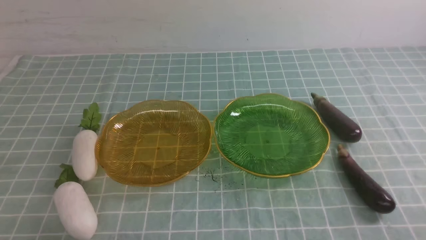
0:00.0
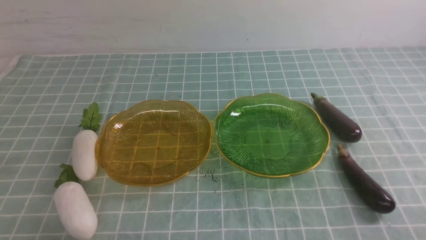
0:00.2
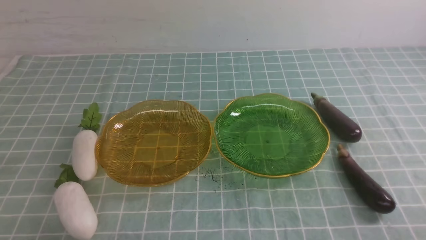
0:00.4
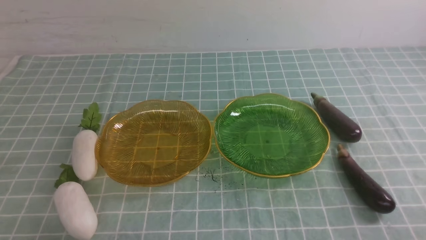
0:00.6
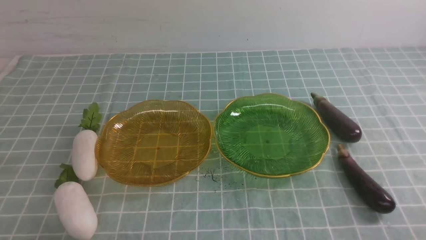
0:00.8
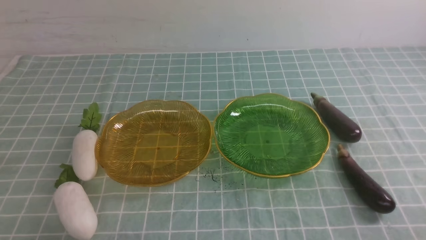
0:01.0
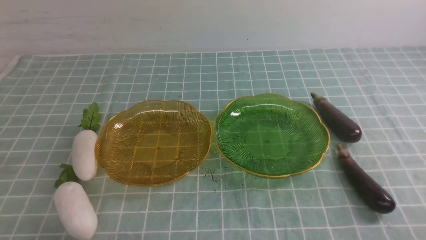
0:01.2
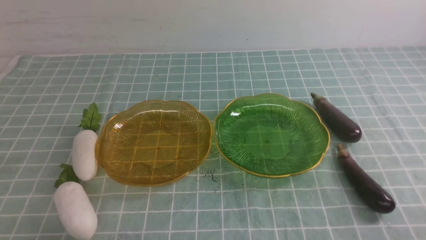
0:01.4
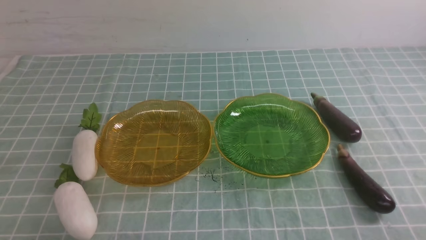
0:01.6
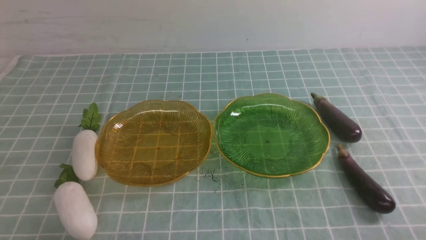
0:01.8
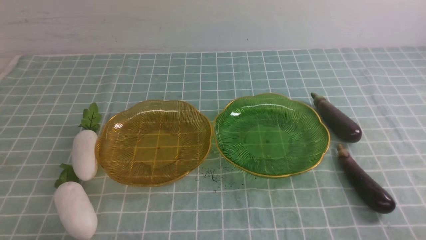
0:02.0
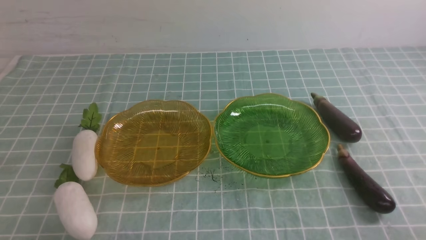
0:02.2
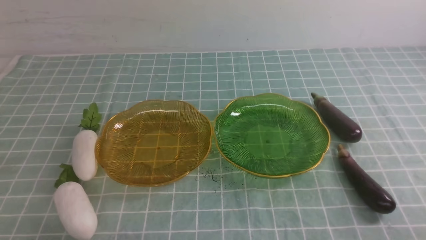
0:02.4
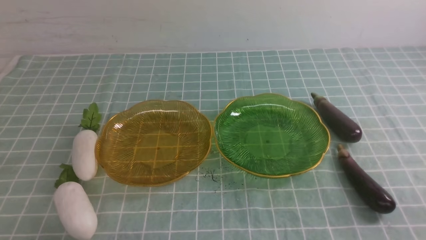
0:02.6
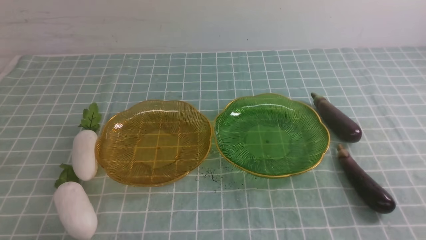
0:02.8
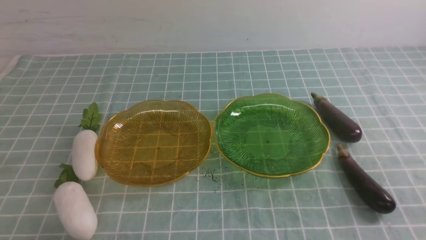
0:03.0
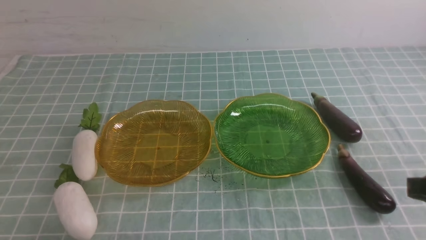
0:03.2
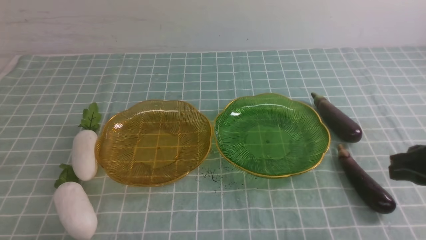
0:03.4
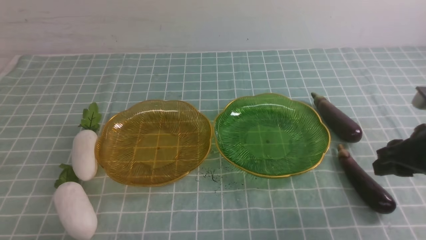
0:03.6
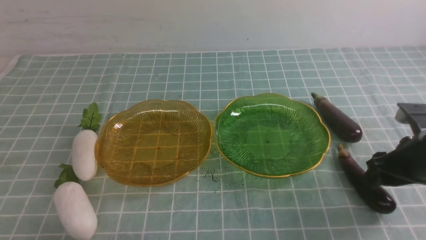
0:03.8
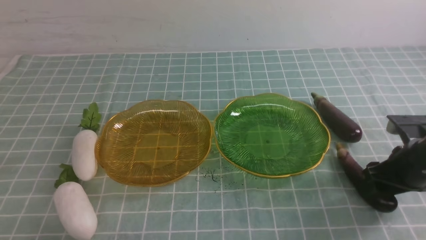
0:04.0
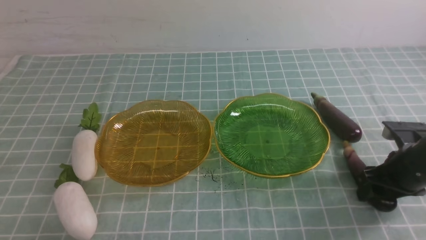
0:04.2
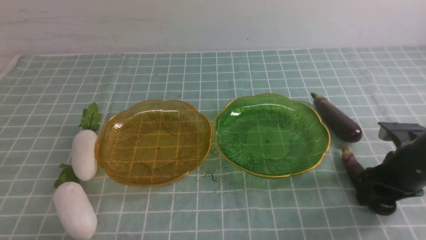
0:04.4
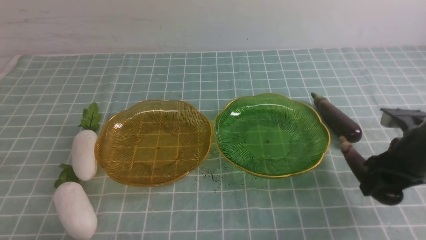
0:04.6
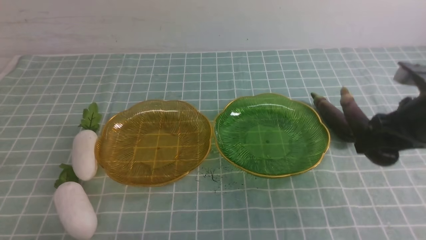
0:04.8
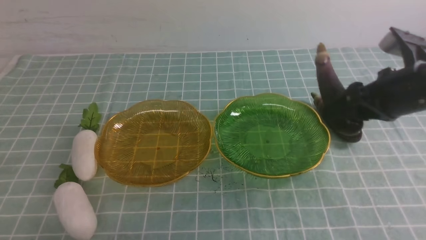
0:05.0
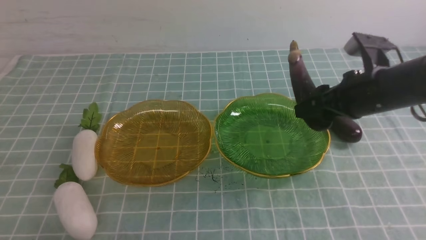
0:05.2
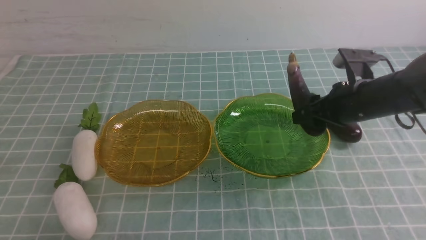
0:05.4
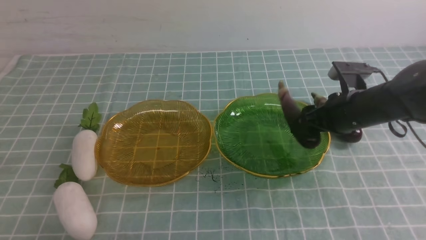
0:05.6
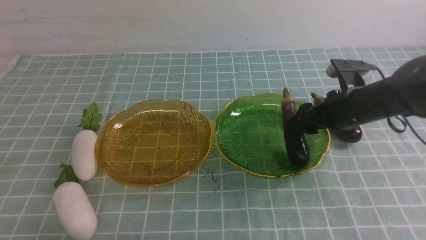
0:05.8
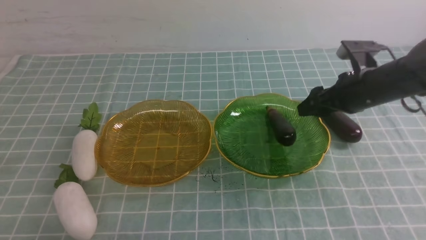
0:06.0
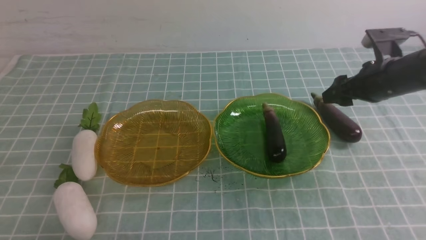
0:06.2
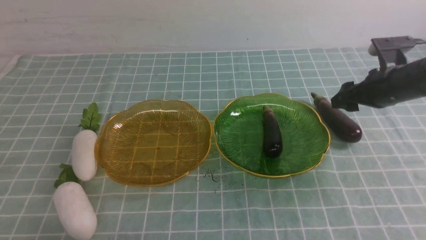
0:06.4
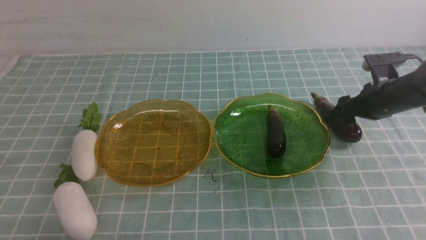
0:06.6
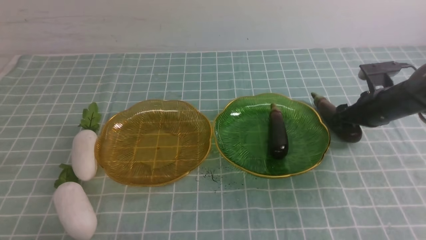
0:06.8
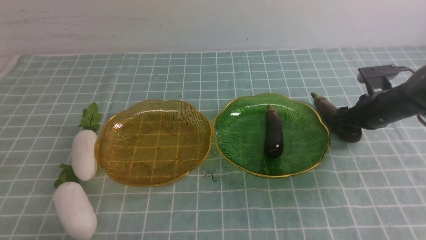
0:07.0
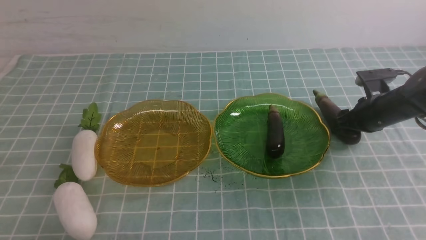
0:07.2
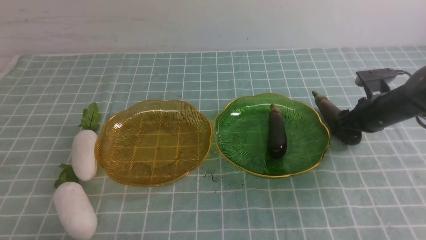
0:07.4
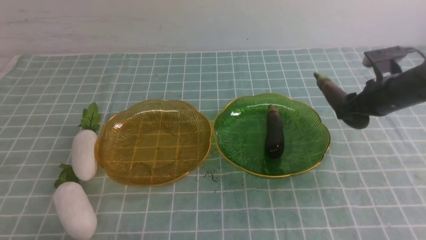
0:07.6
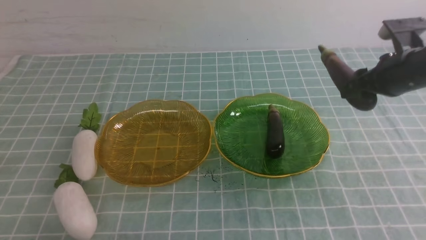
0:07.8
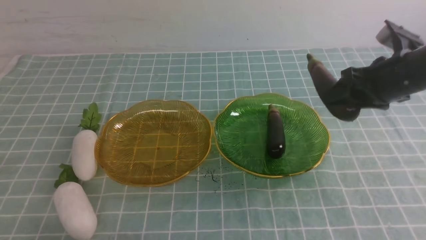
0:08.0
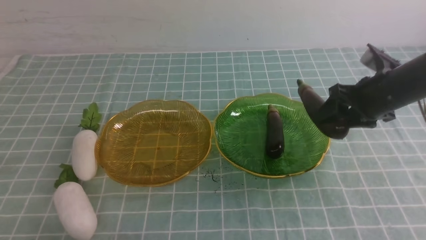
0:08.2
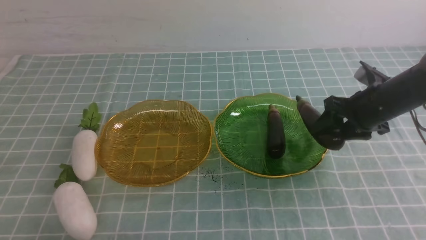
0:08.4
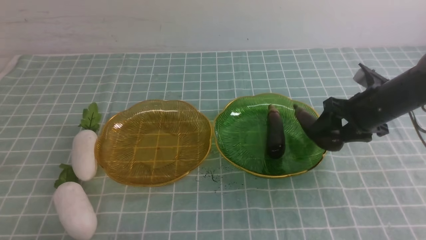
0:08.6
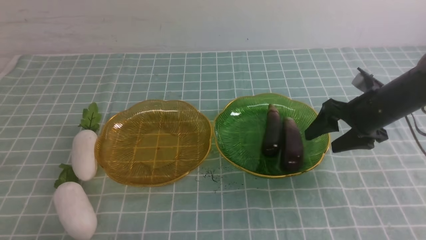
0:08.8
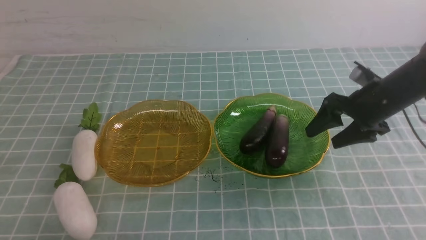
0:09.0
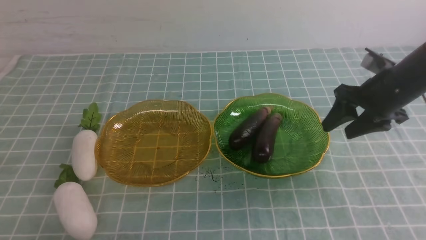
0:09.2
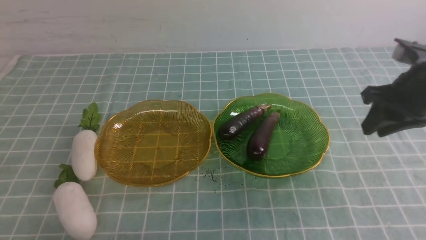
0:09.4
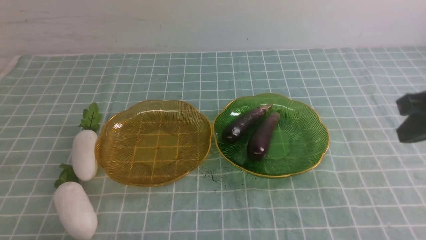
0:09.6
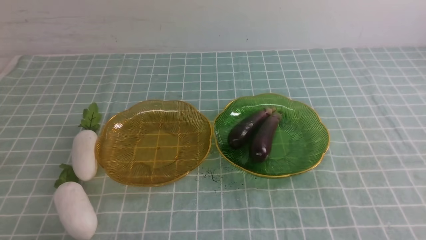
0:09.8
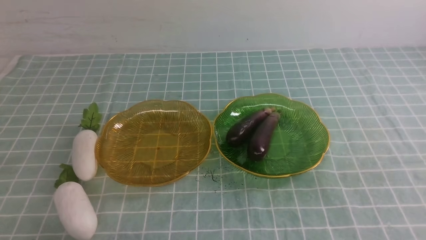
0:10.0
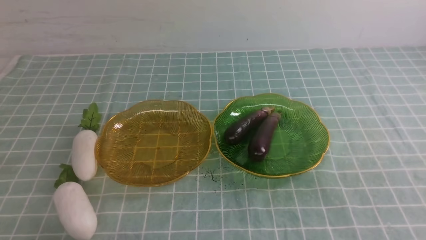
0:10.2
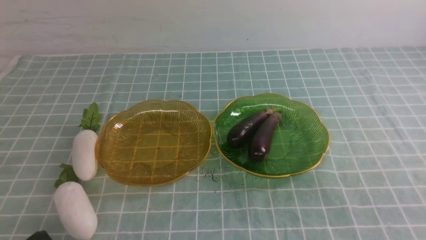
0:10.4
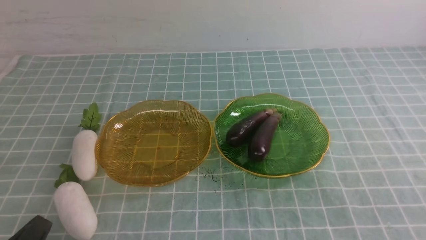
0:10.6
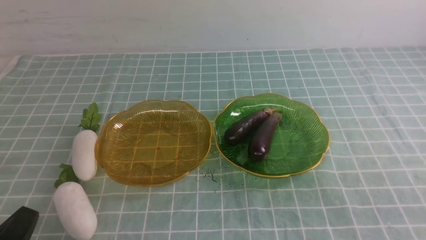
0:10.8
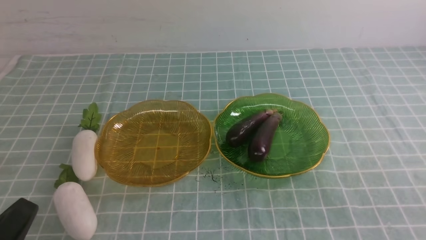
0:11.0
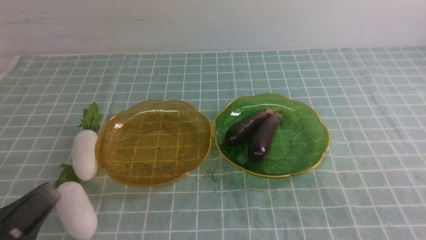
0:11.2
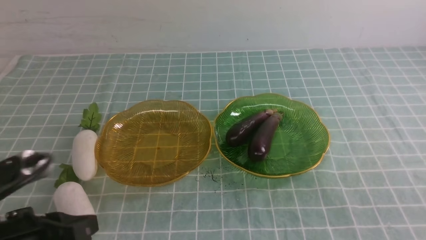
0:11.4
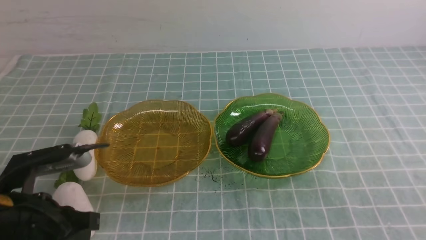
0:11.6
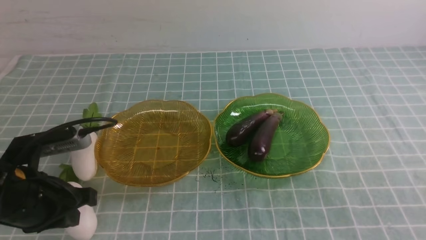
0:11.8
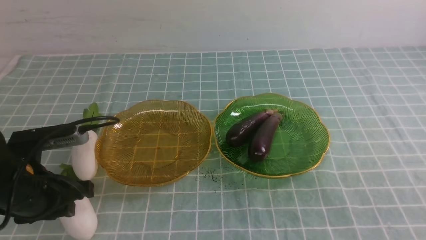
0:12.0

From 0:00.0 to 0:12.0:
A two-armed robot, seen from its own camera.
Step, from 0:00.0 to 0:05.8: use the right arm to grab an eggplant and put it into the right plate.
Step, from 0:06.2 to 0:08.8: use the right arm to grab an eggplant and put it into the right plate.
From 0:00.0 to 0:01.6: Both grippers stay about where they are.
From 0:03.0 to 0:04.4: The right gripper heads forward and downward, covering some 20 cm, and opens its fingers.
From 0:04.4 to 0:06.0: The right gripper is displaced forward, upward and to the left by roughly 10 cm.
From 0:06.0 to 0:07.6: The right gripper goes downward and returns, approximately 10 cm each way.
From 0:07.6 to 0:09.0: The right gripper shifts by approximately 5 cm.
From 0:09.0 to 0:10.4: The right gripper shifts approximately 30 cm backward, and closes.
From 0:10.4 to 0:12.0: The left gripper shifts about 15 cm forward, and opens its fingers.

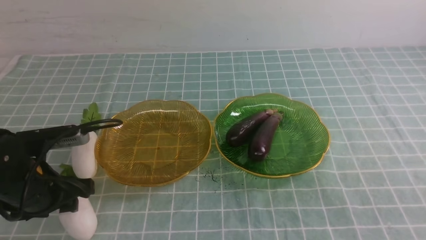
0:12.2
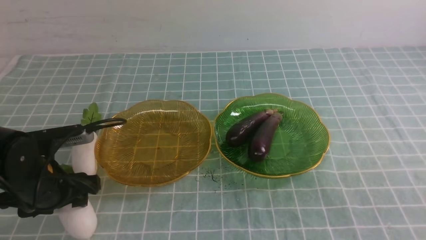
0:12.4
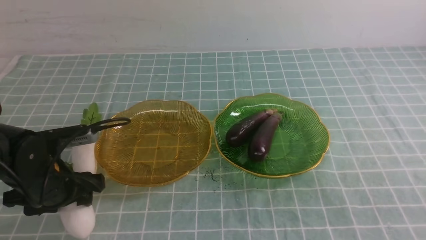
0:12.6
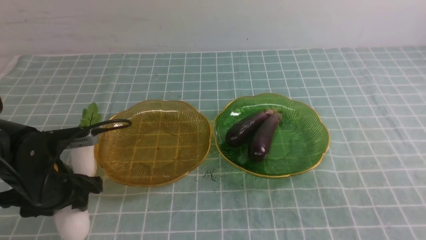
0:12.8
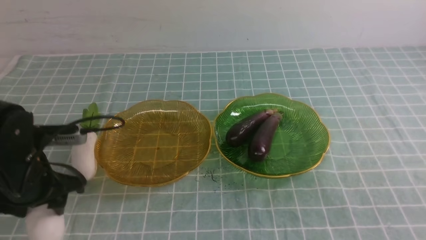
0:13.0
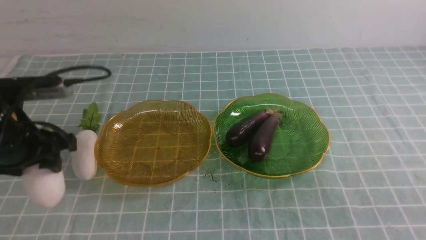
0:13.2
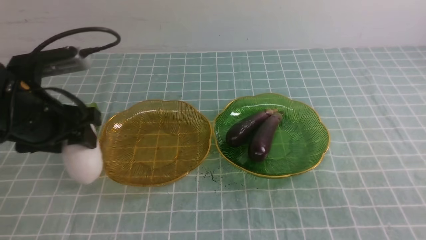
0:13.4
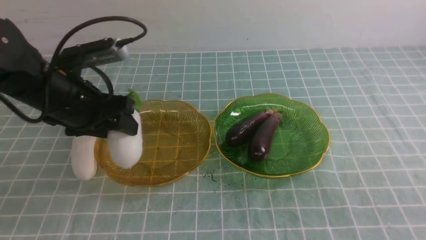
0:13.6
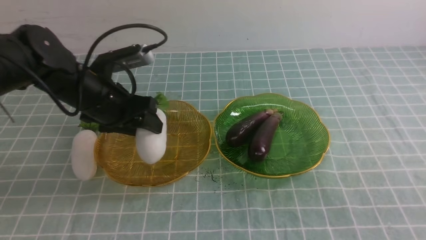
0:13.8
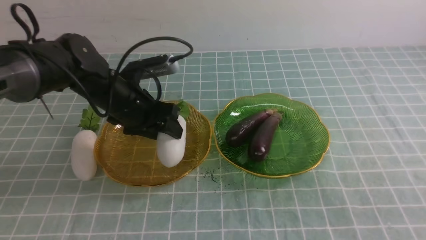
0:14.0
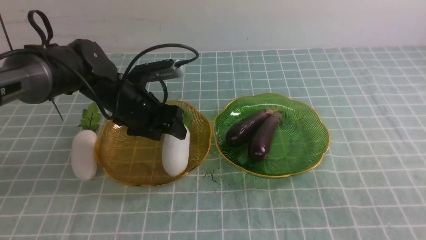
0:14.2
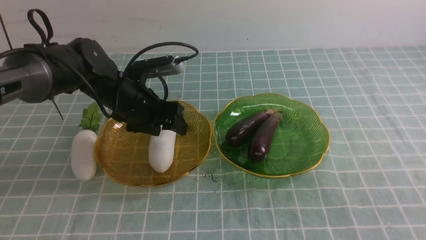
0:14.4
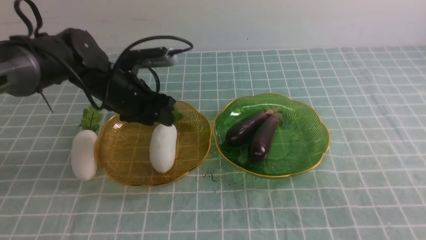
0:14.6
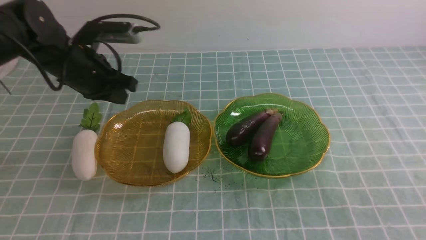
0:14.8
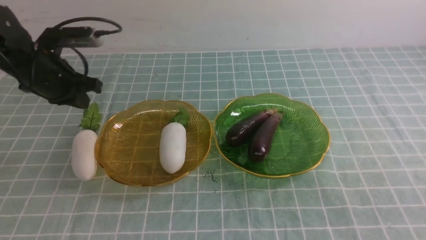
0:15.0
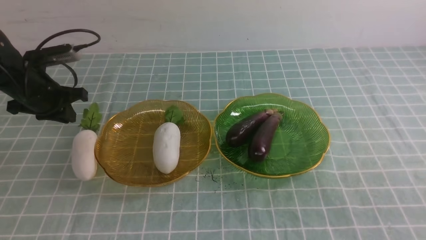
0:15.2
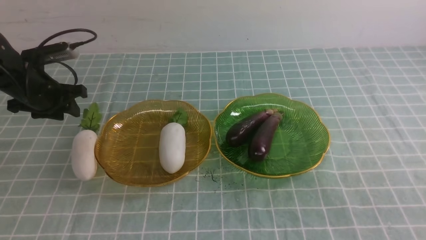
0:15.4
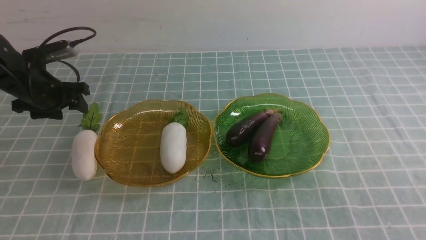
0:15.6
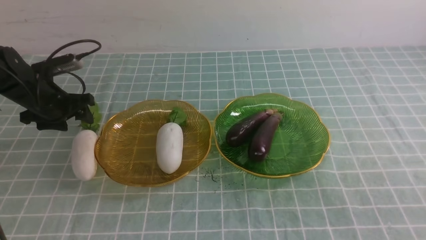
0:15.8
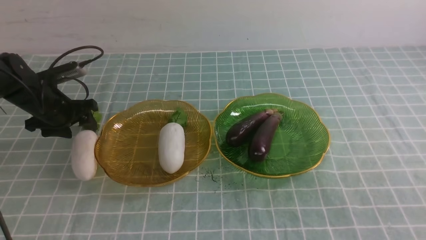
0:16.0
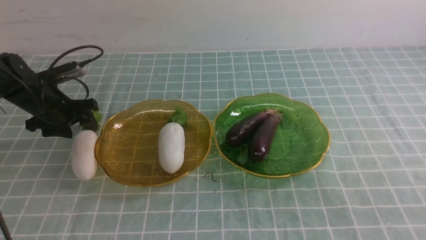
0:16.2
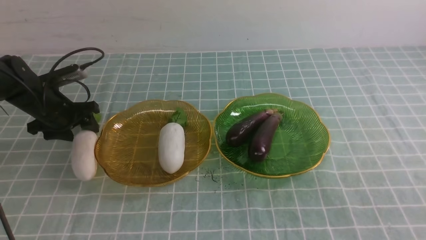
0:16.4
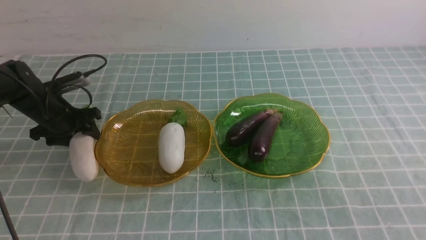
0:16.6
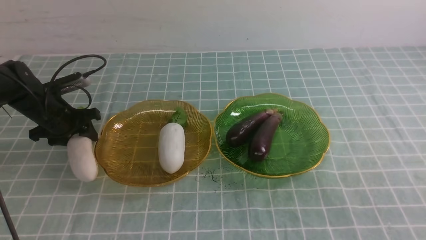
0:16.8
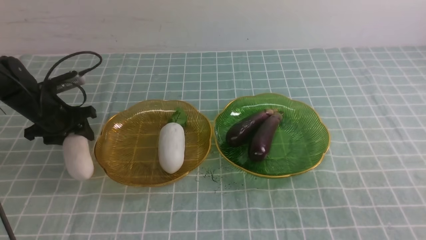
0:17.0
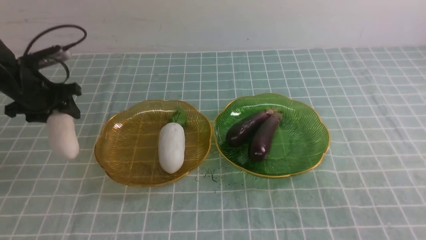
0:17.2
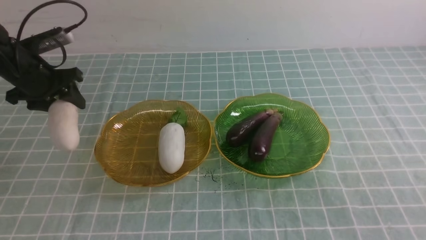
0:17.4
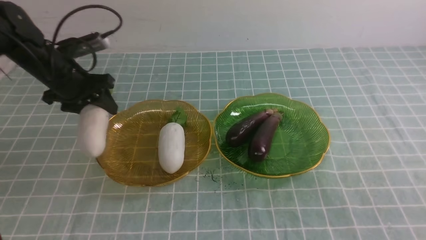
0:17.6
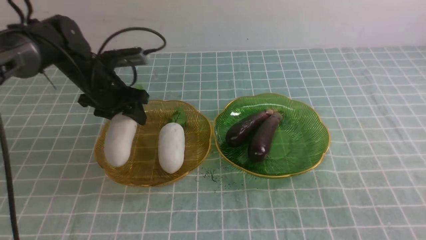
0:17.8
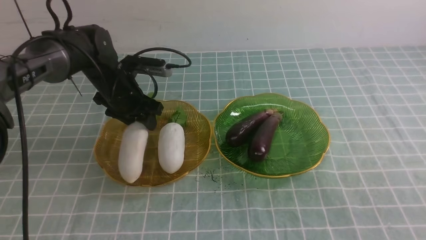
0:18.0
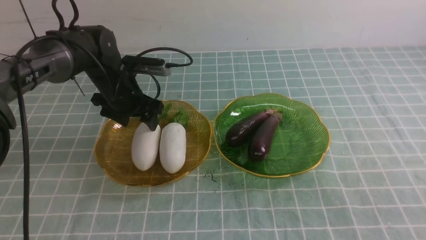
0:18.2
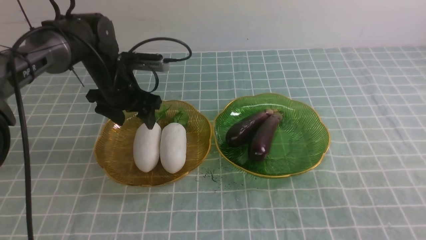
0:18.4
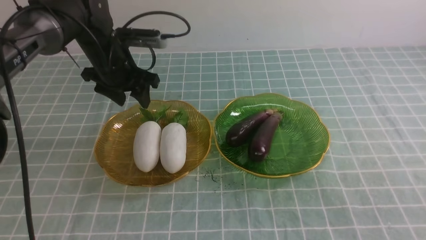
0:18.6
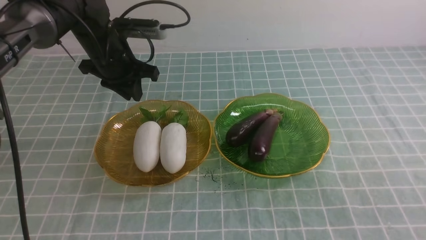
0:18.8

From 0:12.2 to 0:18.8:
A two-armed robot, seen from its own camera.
Step, from 0:12.2 to 0:18.2: use the left arm to grab a radish and put it into the left plate.
From 0:12.2 to 0:13.8: The left gripper travels forward, to the right and upward by roughly 15 cm.
From 0:13.8 to 0:15.4: The left gripper is displaced to the left and forward by approximately 15 cm, and closes and opens again.
From 0:17.2 to 0:18.8: The left gripper heads to the right and upward, covering roughly 15 cm, and closes.
